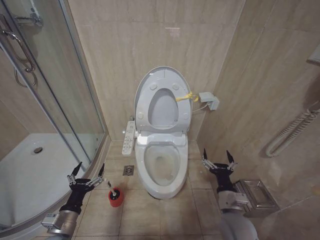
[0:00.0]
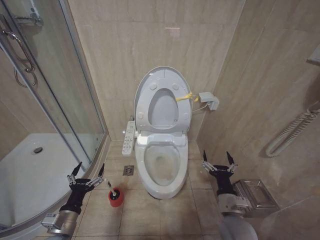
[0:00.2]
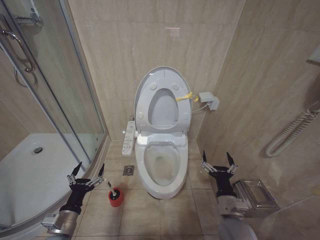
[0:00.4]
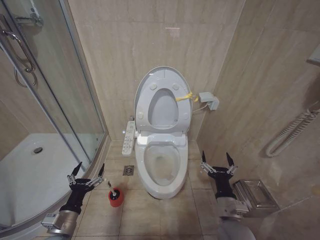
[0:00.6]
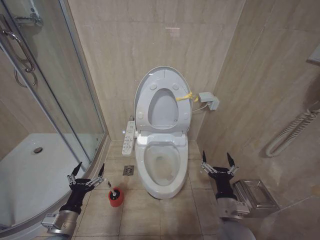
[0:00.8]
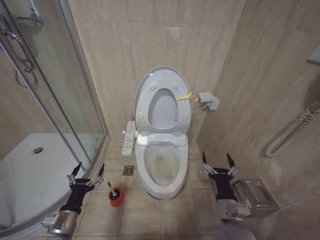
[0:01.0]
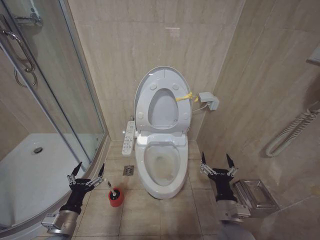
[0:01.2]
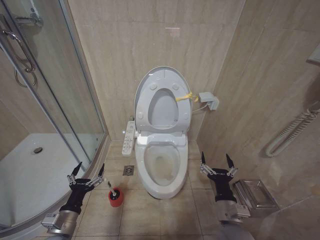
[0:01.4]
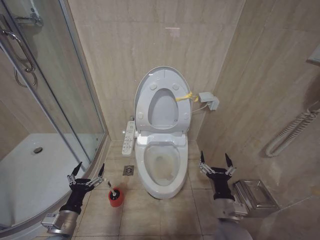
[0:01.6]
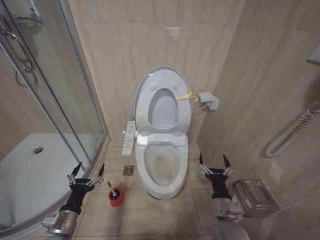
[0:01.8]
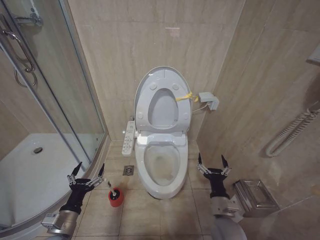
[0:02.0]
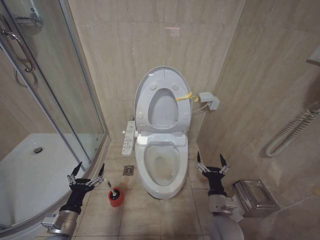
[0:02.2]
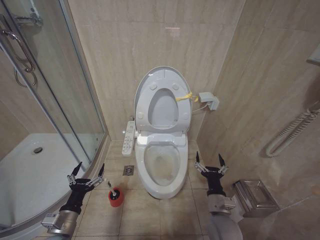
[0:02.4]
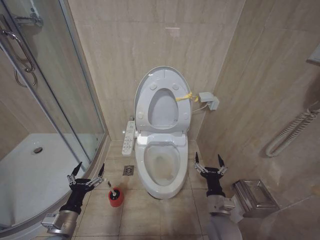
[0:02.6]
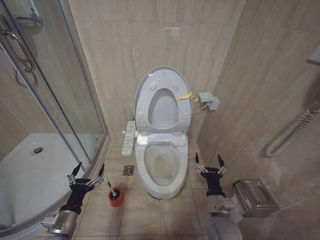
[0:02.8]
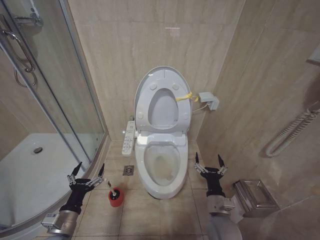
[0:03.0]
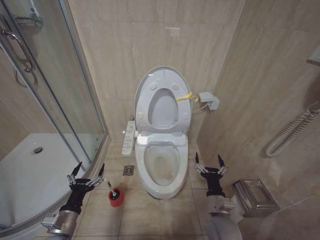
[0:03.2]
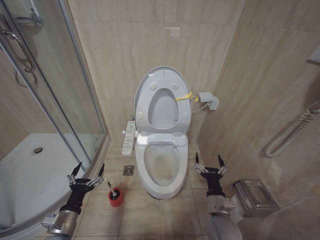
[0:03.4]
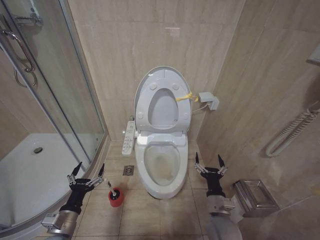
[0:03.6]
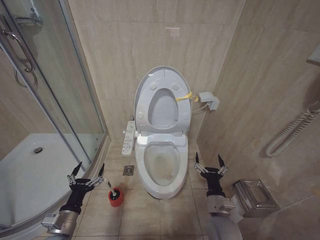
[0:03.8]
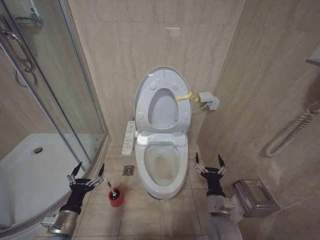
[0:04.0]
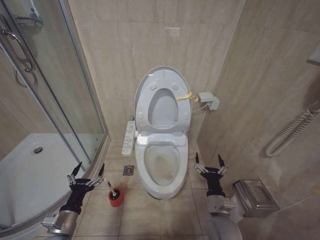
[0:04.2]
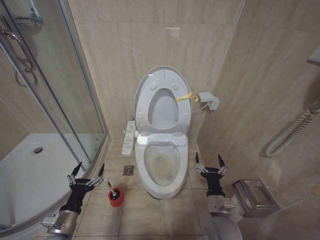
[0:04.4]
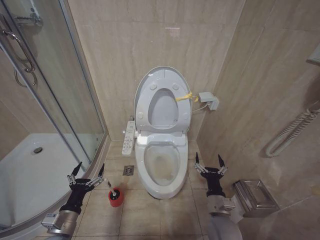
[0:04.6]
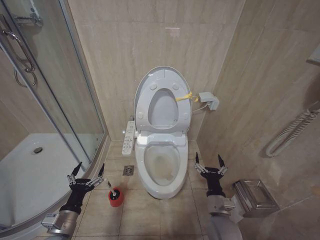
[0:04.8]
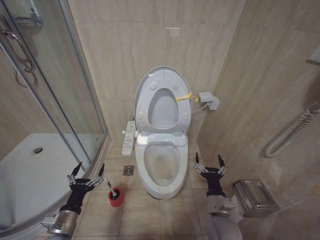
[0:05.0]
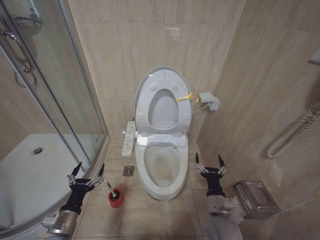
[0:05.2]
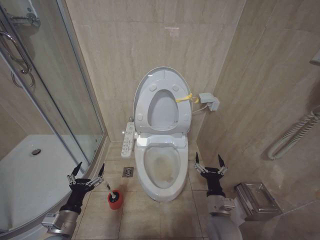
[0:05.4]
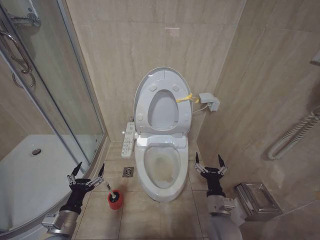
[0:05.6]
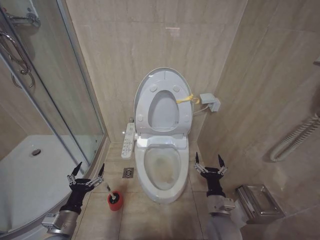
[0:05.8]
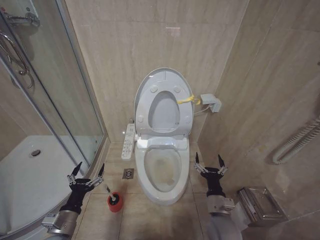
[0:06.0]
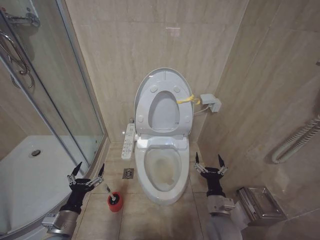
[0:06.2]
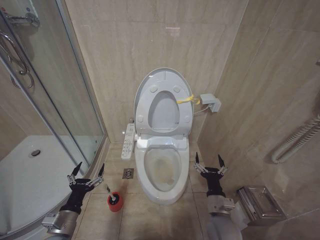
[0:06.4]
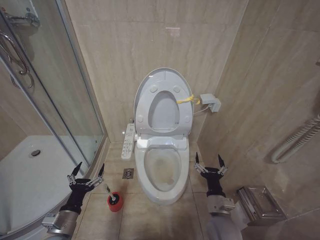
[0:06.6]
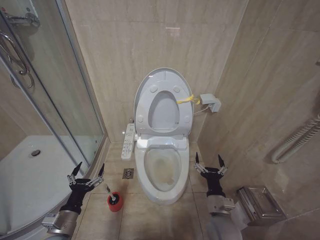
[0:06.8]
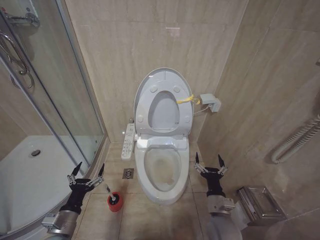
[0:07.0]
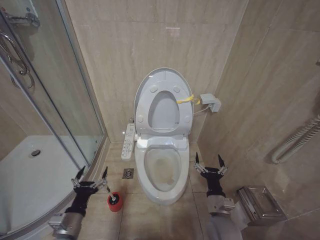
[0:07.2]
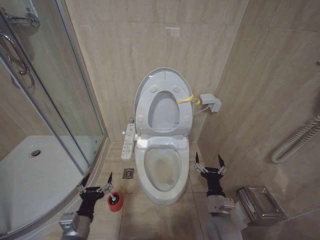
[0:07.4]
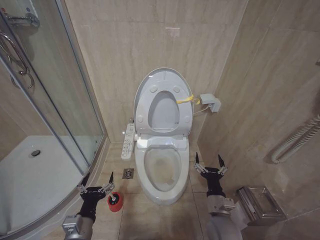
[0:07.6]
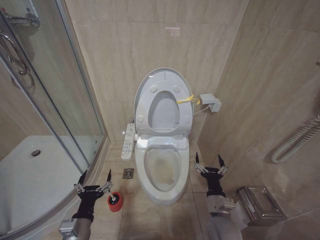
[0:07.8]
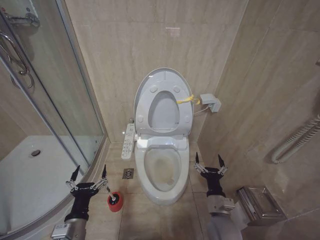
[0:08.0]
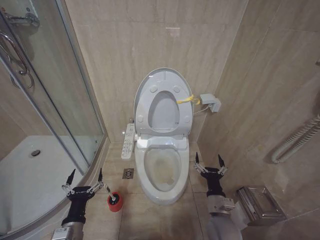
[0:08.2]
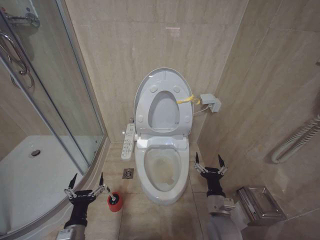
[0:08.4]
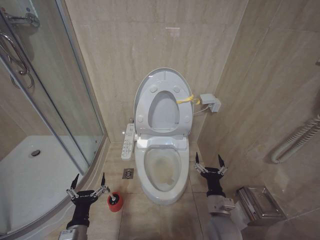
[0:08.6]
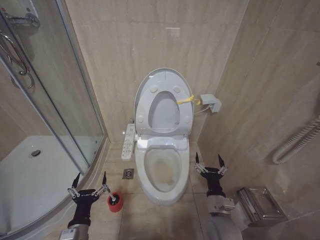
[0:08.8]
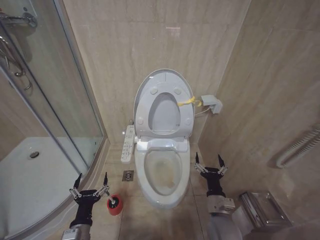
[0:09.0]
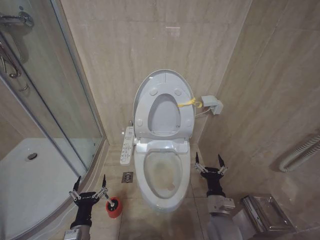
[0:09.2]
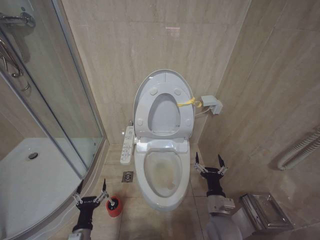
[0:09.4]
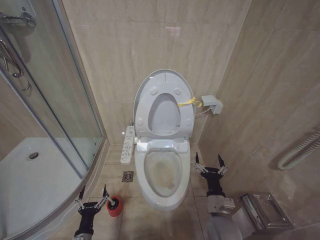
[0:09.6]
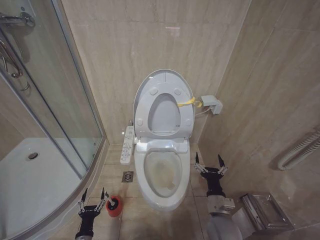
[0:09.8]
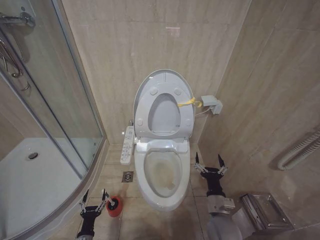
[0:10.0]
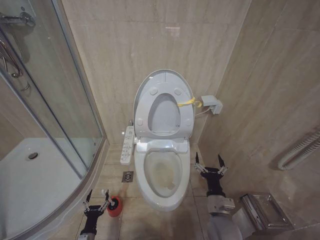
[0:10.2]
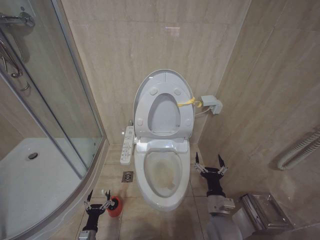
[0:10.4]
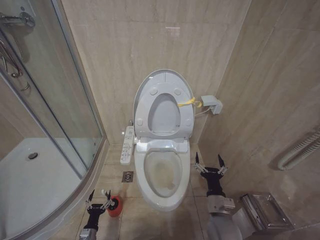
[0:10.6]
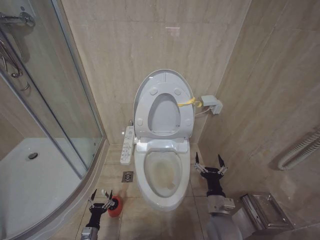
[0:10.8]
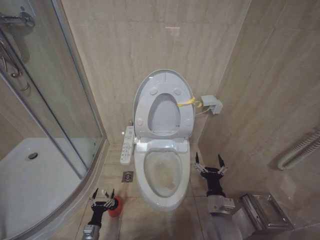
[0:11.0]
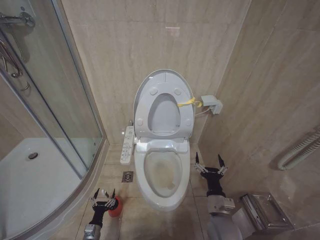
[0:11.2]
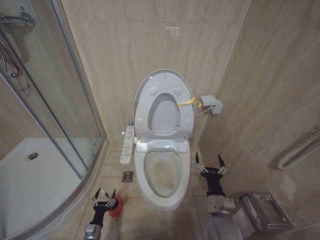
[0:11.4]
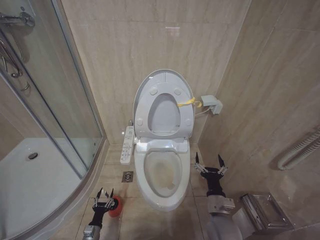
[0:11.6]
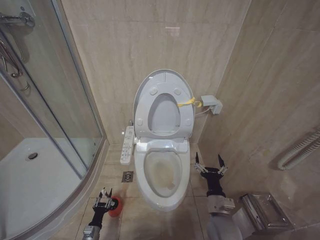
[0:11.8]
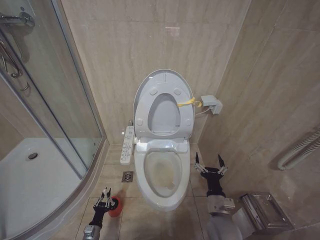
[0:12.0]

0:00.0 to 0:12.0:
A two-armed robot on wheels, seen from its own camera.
Task of the whole recording: Open the toilet lid, clean the toilet bowl with a toilet brush, close the toilet lid, and flush.
0:00.0 to 0:01.6: The right gripper ends up approximately 5 cm from where it was.
0:01.6 to 0:03.0: The right gripper shifts by roughly 5 cm.
0:03.0 to 0:06.0: The two grippers keep their place.
0:06.0 to 0:07.6: The left gripper shifts some 5 cm to the right.
0:07.6 to 0:09.0: The grippers make only small movements.
0:09.0 to 0:10.4: The left gripper travels downward by some 20 cm.
0:10.4 to 0:12.0: The left gripper changes place by about 5 cm.

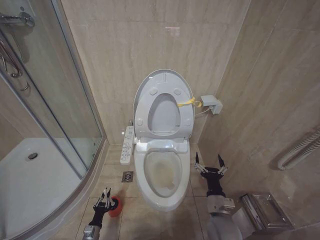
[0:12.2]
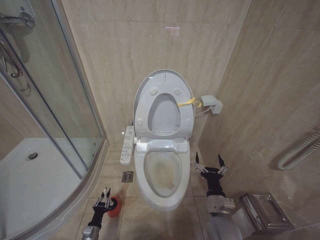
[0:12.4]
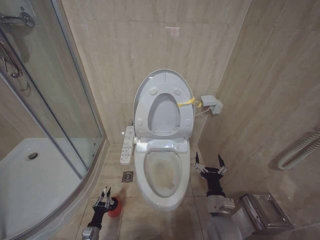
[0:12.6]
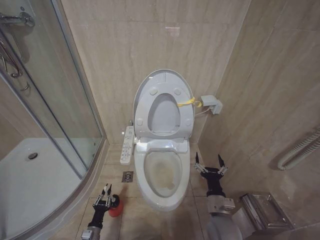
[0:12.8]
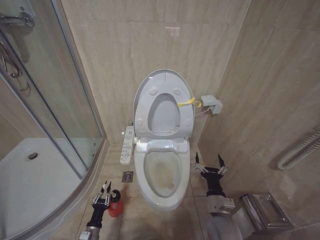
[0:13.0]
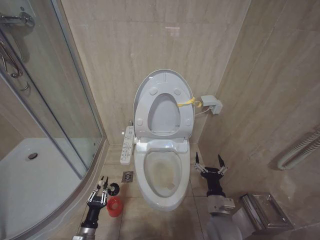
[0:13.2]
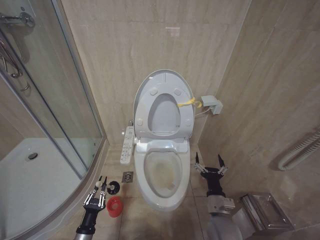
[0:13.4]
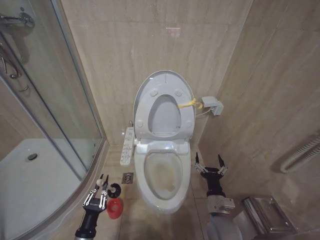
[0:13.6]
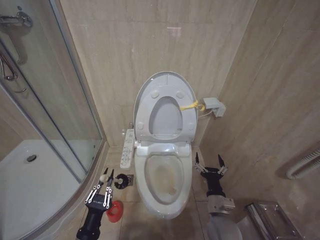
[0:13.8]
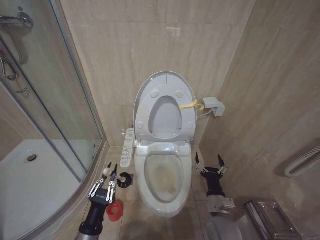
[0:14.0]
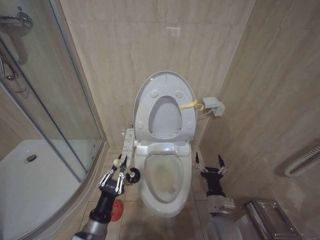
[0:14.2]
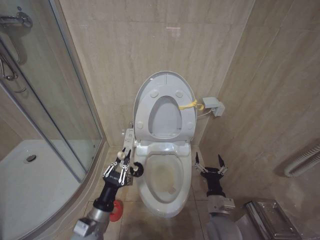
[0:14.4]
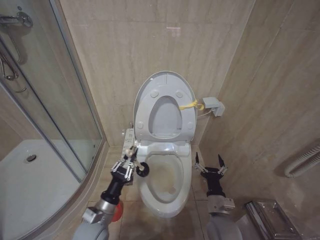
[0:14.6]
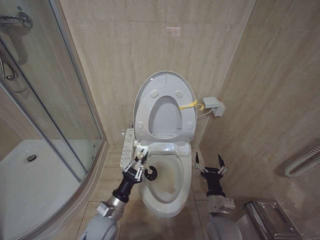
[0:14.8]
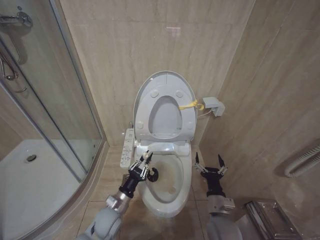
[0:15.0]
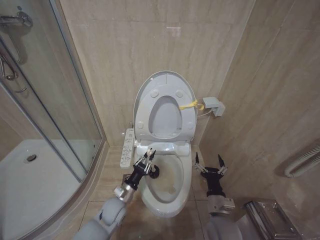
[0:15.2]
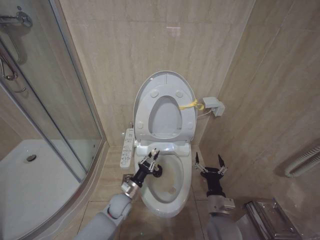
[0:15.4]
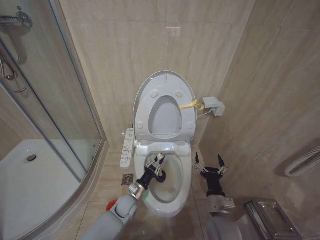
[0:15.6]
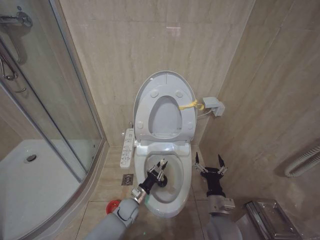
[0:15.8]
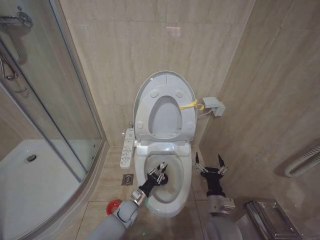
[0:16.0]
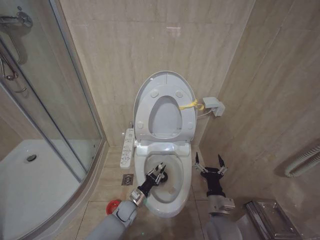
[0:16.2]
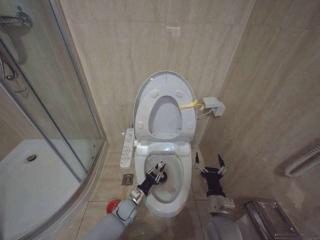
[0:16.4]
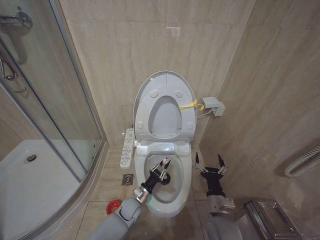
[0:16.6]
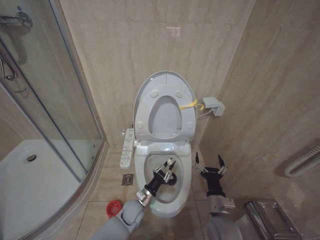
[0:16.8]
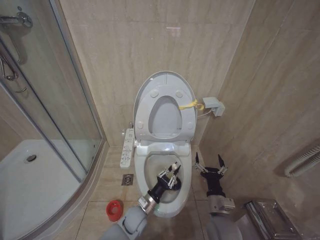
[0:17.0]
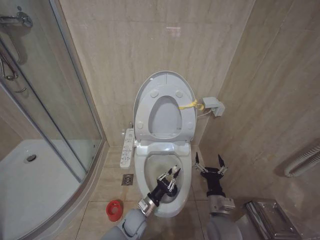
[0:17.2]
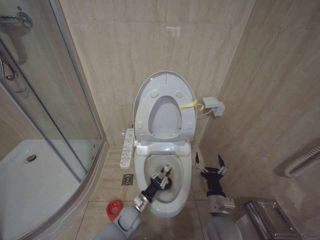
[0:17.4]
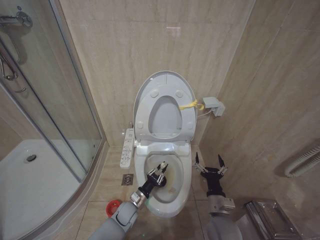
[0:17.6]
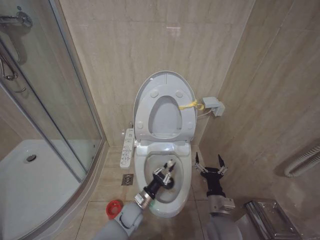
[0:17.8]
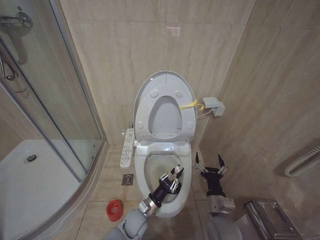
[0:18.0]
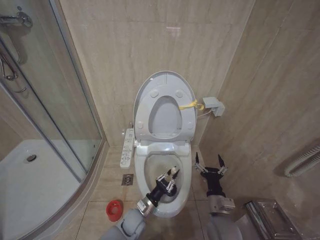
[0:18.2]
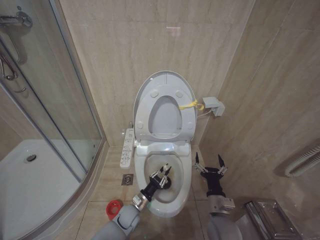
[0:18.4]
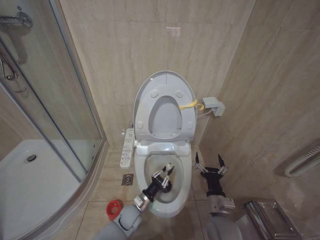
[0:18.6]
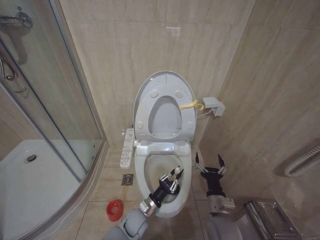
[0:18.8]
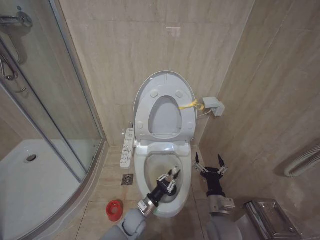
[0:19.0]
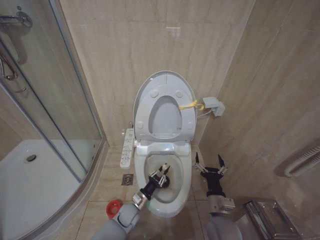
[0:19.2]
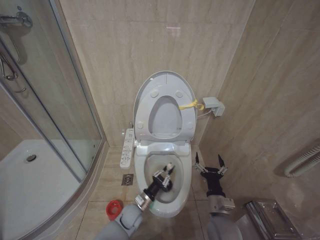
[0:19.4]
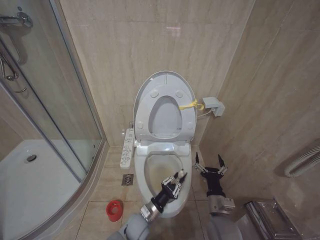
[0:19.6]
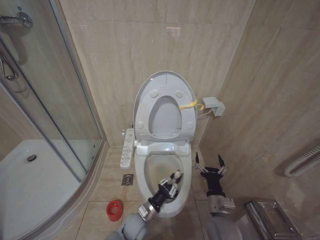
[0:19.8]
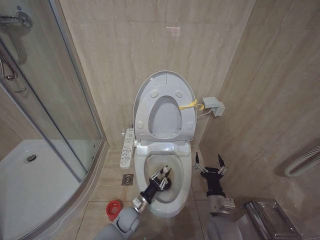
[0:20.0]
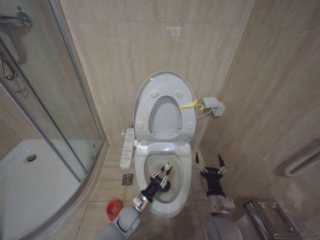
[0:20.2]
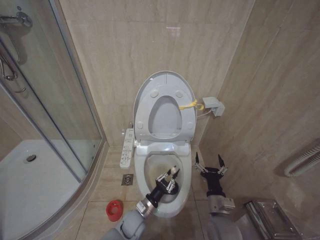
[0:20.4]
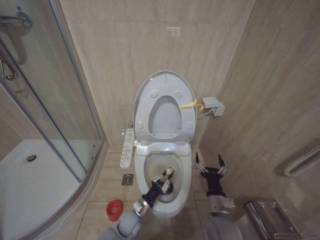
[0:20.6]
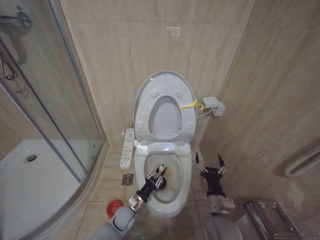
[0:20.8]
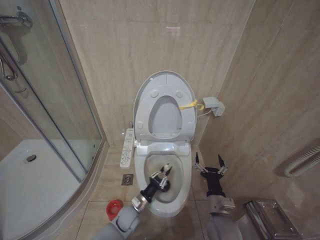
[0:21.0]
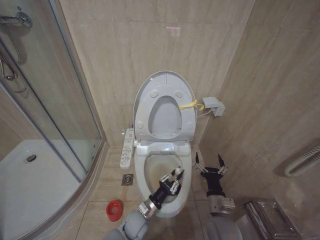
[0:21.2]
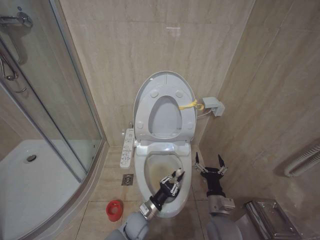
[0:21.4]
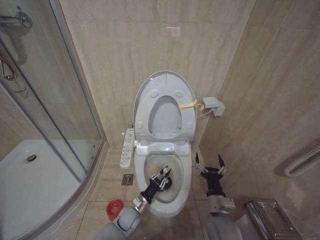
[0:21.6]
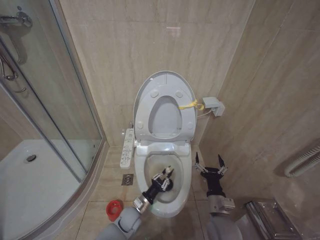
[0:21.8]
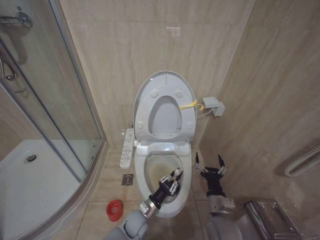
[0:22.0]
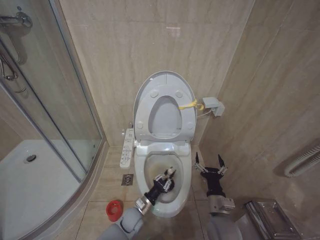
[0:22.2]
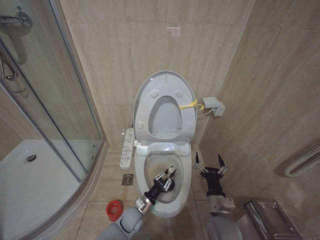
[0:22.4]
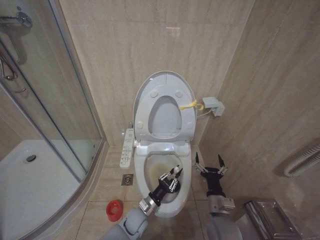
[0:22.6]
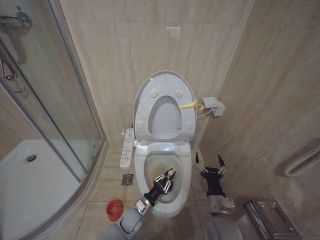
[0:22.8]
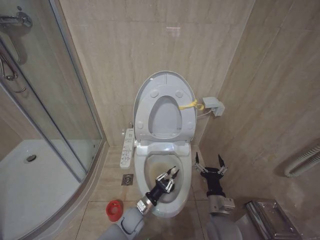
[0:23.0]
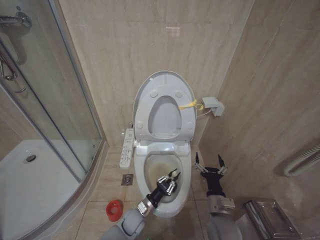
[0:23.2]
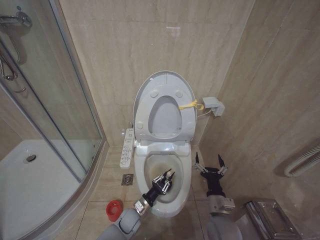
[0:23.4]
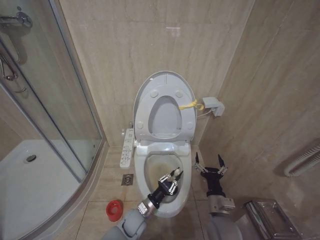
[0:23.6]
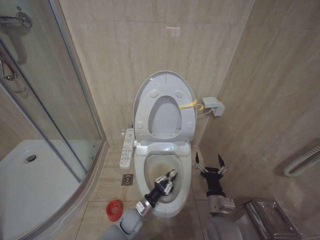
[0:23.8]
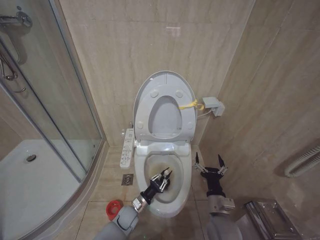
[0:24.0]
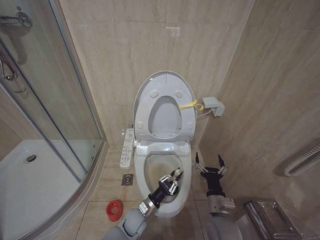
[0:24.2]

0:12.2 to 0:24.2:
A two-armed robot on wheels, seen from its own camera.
Task of the whole recording: Open the toilet lid, clean the toilet bowl with a toilet brush, close the toilet lid, and flush.
0:12.2 to 0:13.8: The left gripper shifts approximately 20 cm upward.
0:13.8 to 0:15.2: The left gripper moves forward and to the right, some 15 cm.
0:15.2 to 0:16.6: The left gripper travels downward, forward and to the right by approximately 10 cm.
0:16.6 to 0:18.2: The left gripper moves forward and backward over roughly 5 cm, changing direction 2 times.
0:21.2 to 0:22.6: The grippers stay close to where they were, moving slightly.
